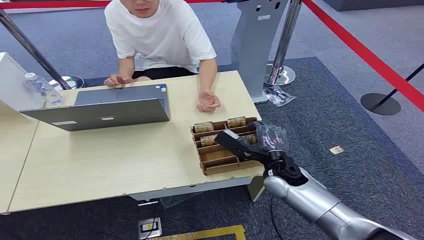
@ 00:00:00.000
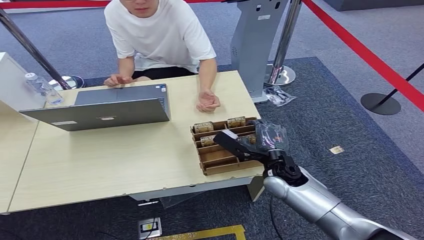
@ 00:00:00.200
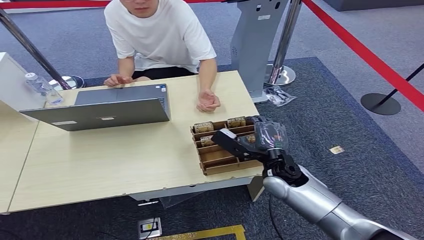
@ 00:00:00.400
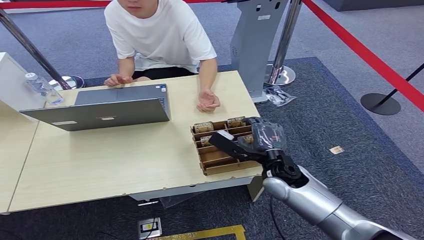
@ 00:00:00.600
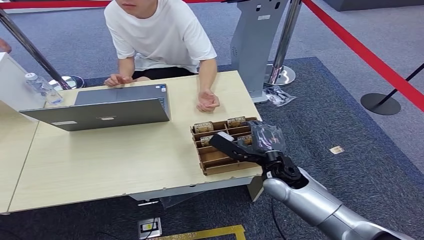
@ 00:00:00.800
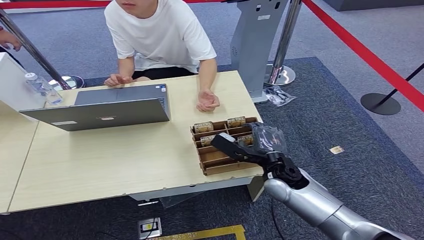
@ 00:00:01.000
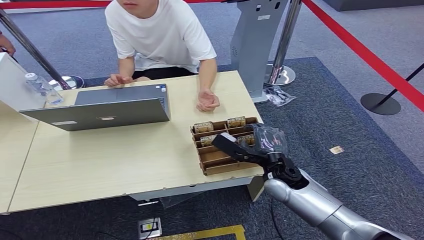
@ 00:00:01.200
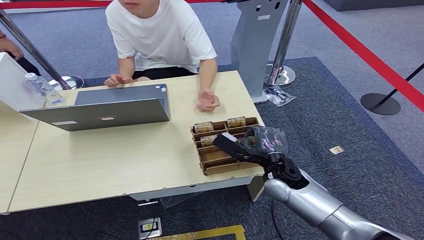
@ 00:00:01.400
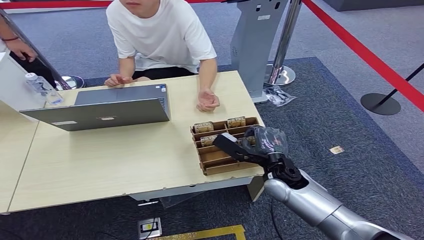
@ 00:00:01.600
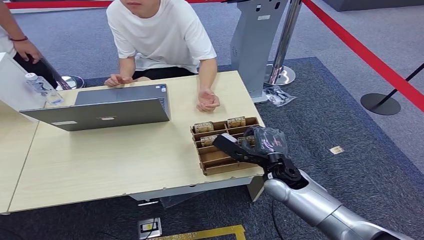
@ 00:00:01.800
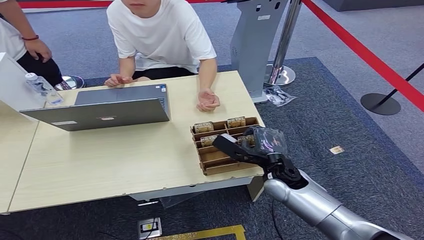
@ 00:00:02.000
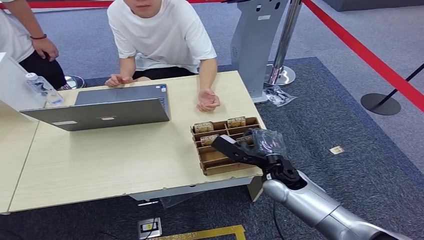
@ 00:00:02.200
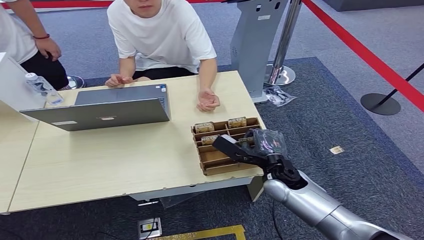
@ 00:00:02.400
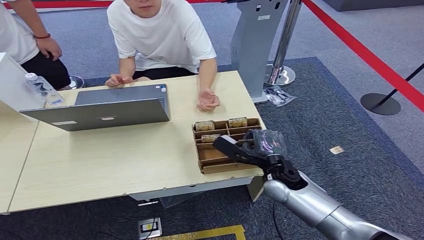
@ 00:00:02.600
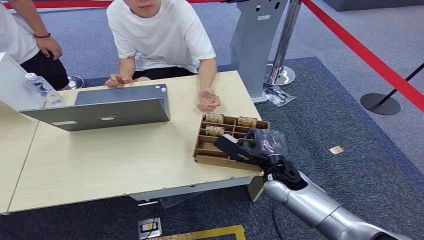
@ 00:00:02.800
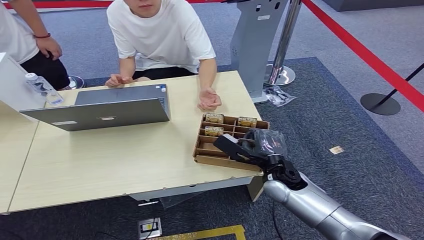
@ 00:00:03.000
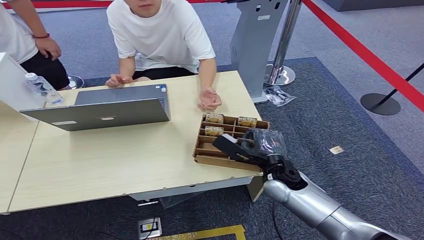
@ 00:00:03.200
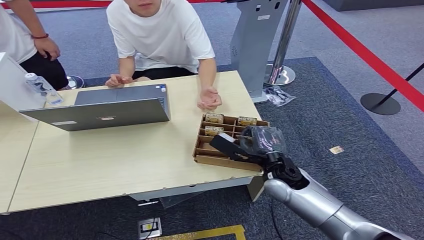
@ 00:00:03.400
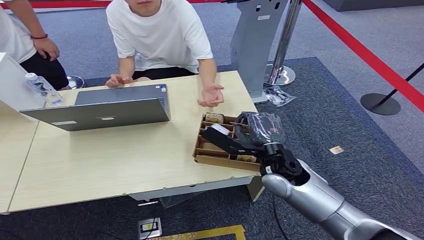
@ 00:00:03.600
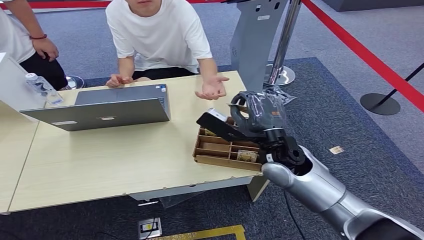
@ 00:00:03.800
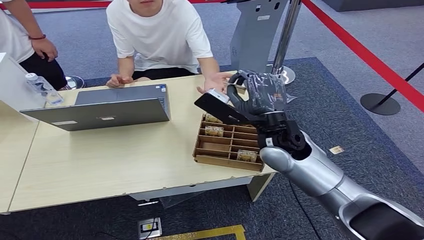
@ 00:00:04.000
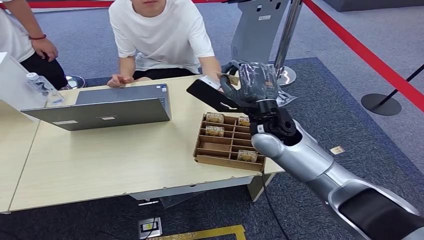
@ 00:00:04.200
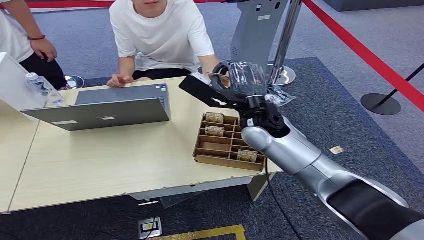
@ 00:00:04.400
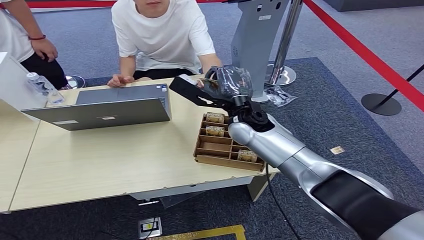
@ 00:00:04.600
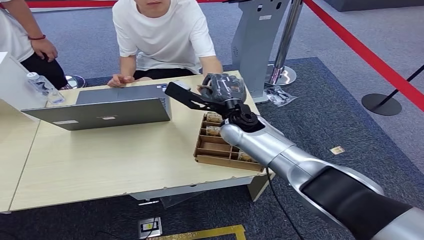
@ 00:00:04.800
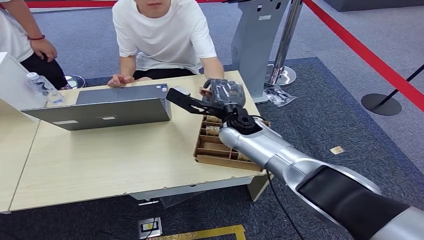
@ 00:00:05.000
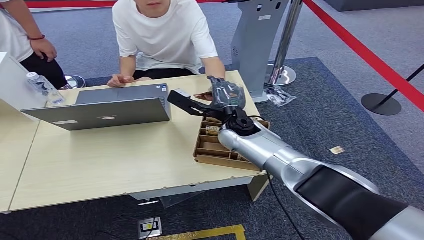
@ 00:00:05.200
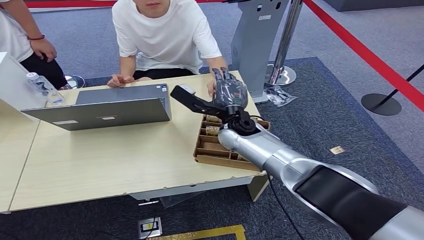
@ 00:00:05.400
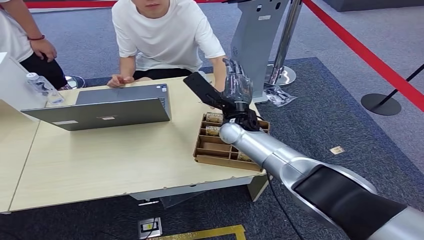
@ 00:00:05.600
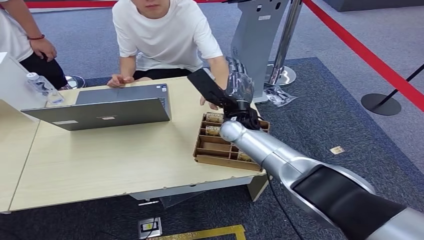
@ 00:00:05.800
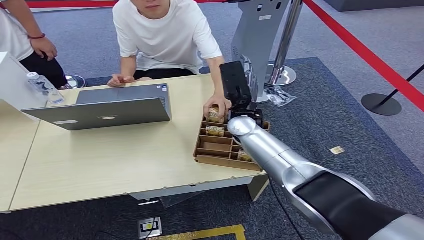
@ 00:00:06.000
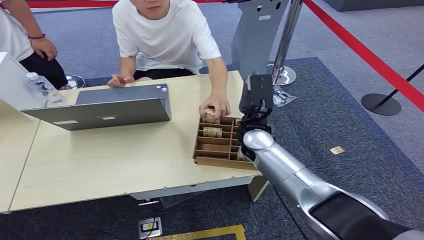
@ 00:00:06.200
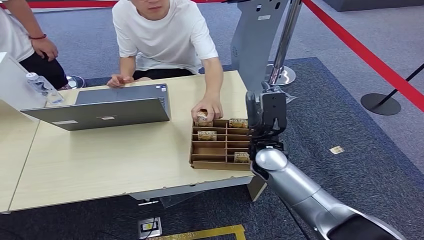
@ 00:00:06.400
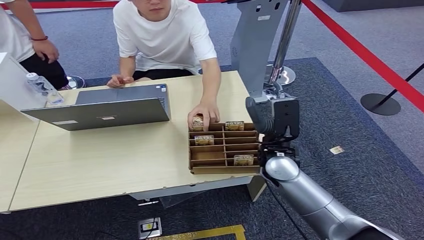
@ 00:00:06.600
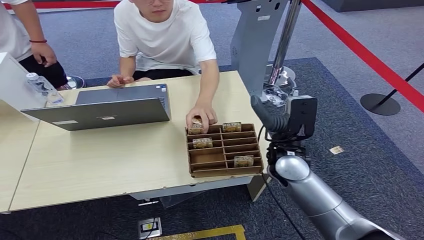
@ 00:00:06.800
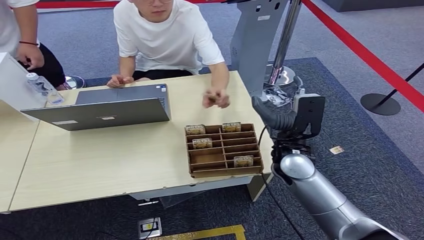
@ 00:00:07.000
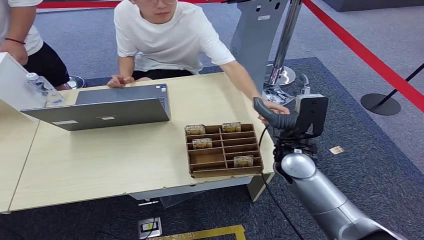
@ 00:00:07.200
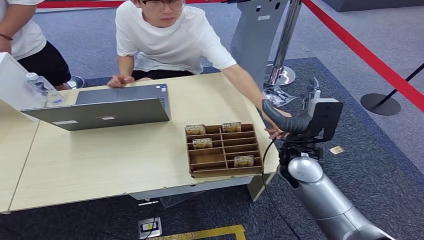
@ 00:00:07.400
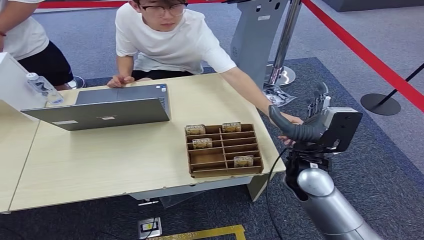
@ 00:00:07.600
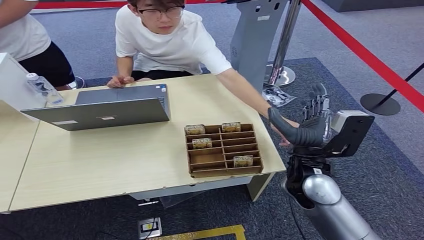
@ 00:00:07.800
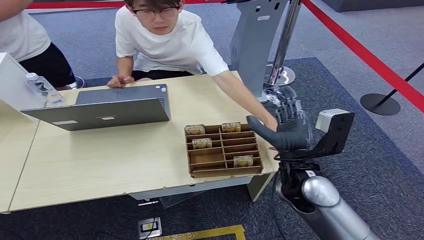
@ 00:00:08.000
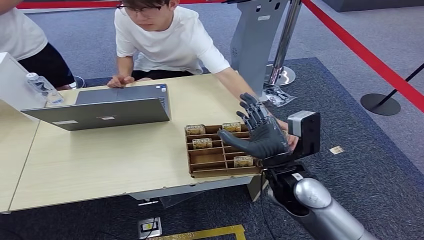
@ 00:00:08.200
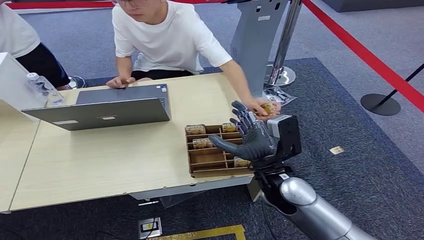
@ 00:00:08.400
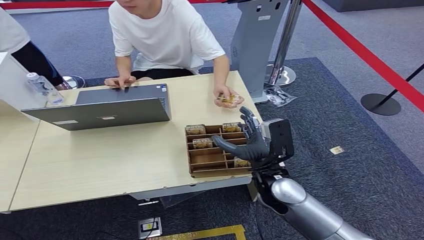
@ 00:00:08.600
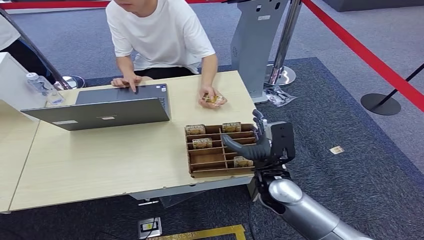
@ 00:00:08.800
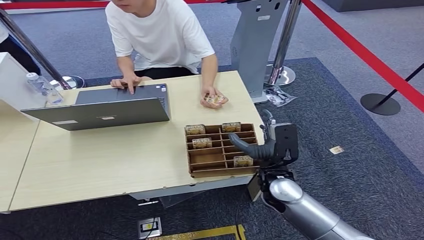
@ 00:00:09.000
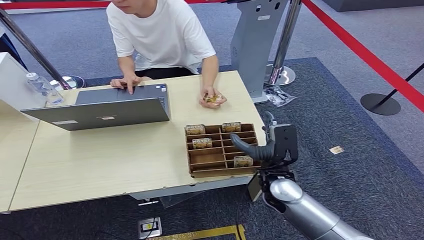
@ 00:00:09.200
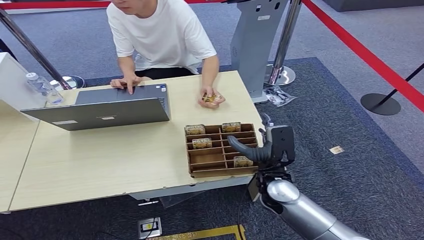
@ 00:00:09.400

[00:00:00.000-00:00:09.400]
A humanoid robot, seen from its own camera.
Step, 00:00:00.000 to 00:00:03.800: Pick up the room card from the card holder.
Step, 00:00:04.000 to 00:00:09.400: Hand the room card to the target.
00:00:01.600 to 00:00:03.200: Neither hand changes place.
00:00:03.200 to 00:00:04.800: The right hand moves forward, upward and to the left, roughly 20 cm.
00:00:04.800 to 00:00:06.200: The right hand ends up roughly 5 cm from where it was.
00:00:07.800 to 00:00:09.400: The right hand shifts some 10 cm downward.
